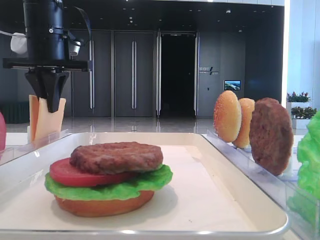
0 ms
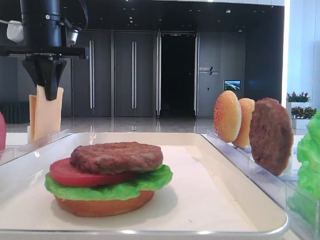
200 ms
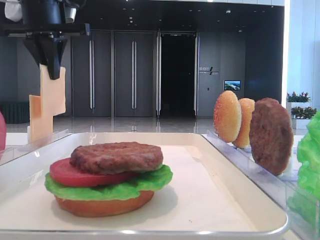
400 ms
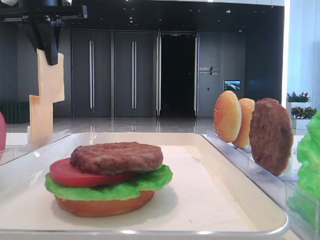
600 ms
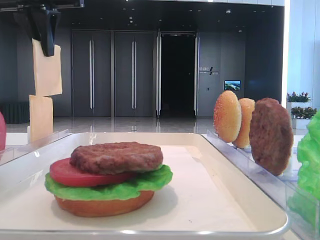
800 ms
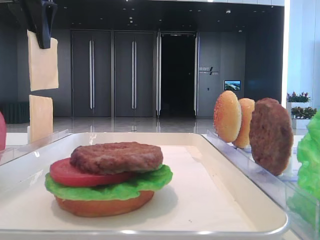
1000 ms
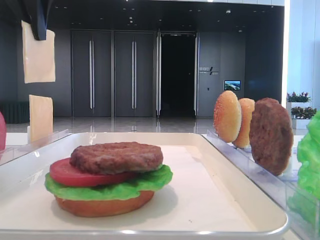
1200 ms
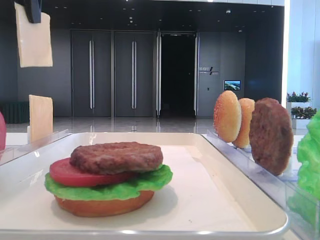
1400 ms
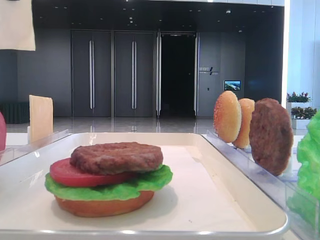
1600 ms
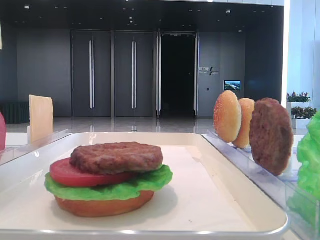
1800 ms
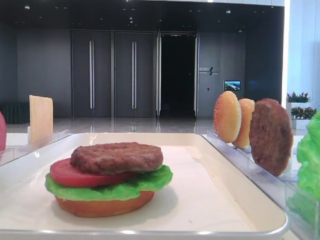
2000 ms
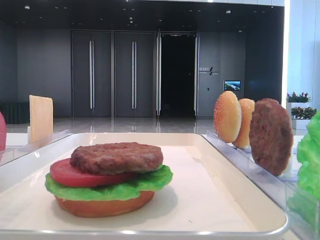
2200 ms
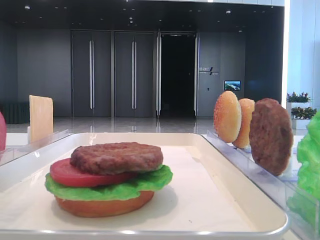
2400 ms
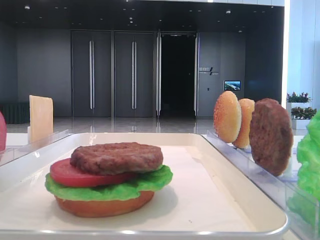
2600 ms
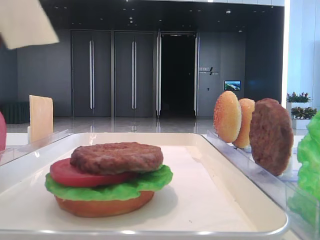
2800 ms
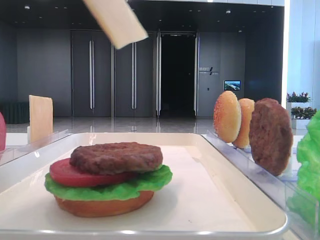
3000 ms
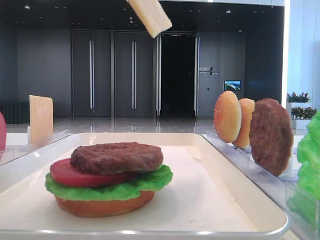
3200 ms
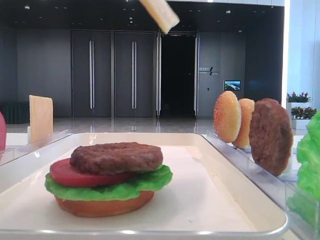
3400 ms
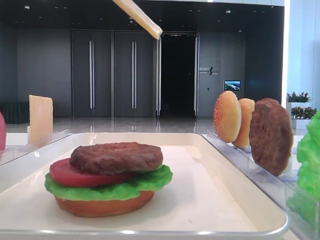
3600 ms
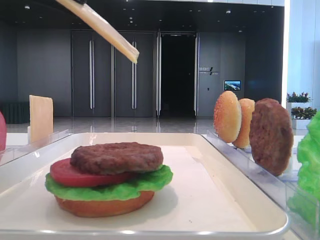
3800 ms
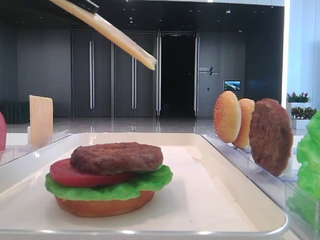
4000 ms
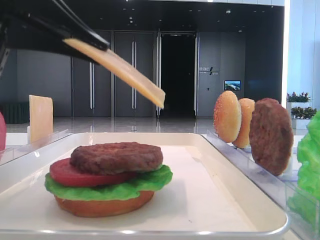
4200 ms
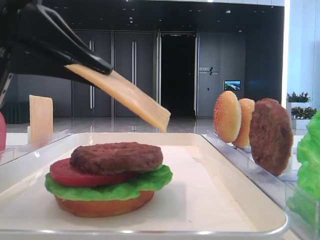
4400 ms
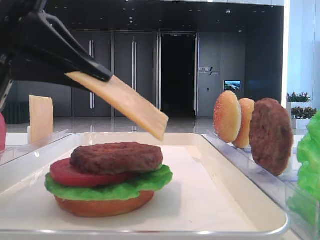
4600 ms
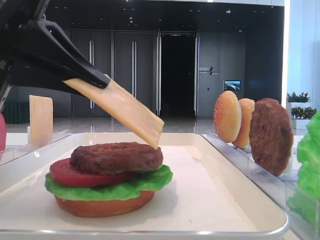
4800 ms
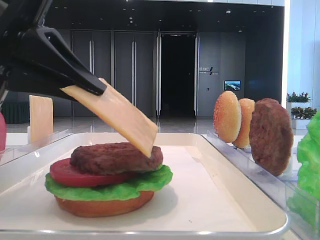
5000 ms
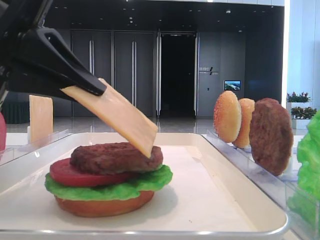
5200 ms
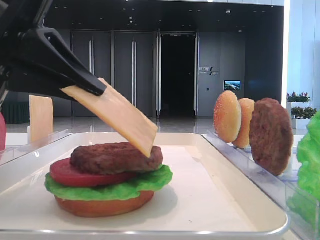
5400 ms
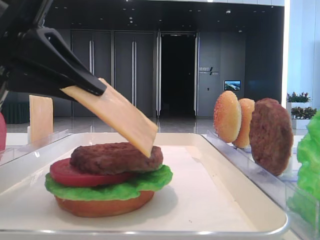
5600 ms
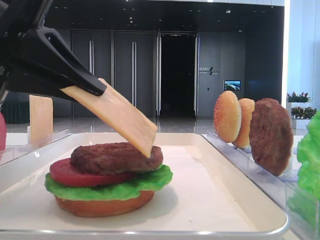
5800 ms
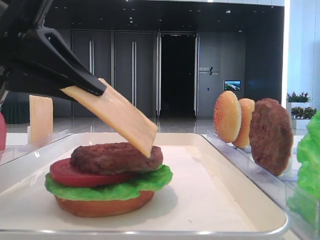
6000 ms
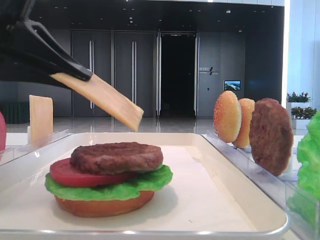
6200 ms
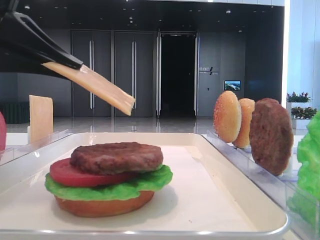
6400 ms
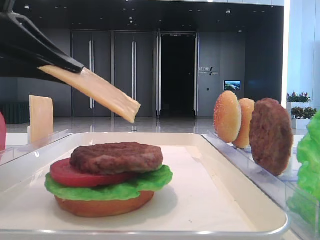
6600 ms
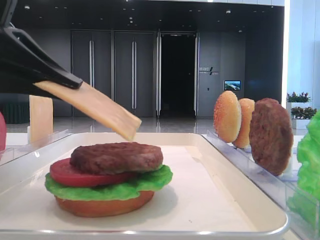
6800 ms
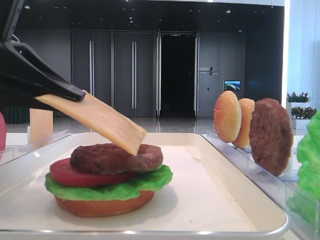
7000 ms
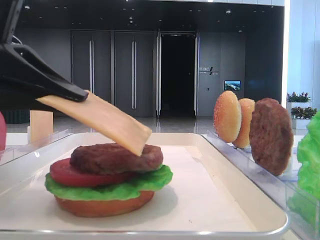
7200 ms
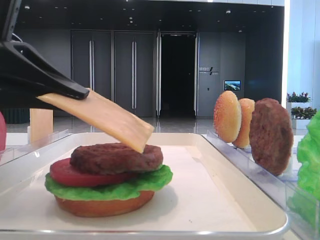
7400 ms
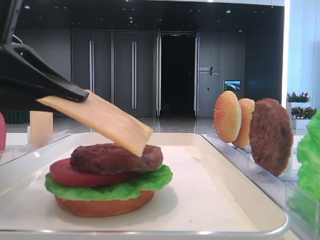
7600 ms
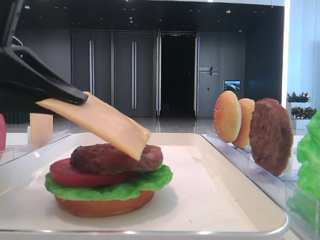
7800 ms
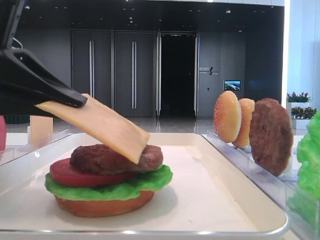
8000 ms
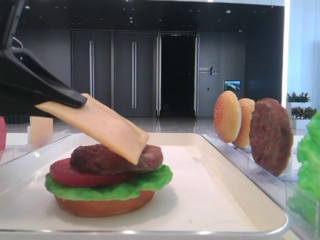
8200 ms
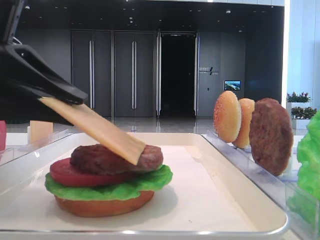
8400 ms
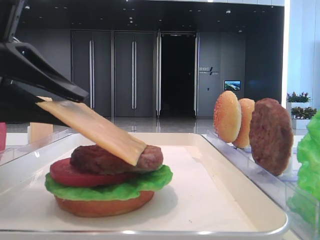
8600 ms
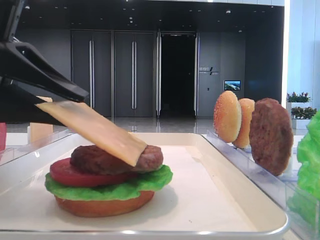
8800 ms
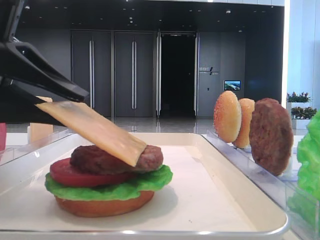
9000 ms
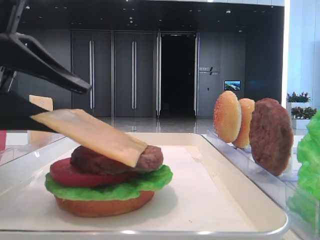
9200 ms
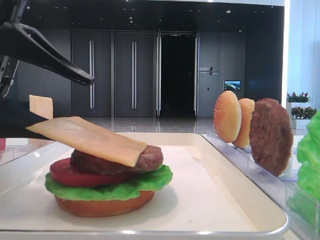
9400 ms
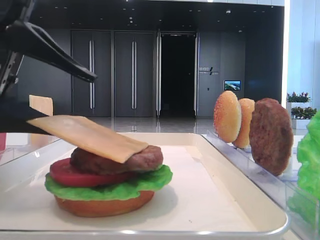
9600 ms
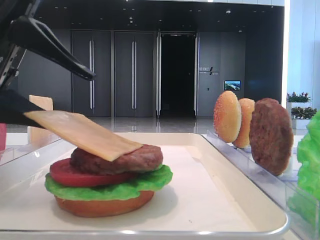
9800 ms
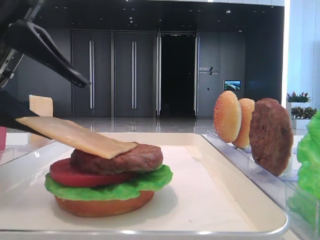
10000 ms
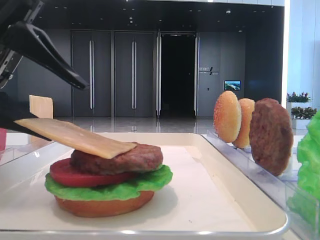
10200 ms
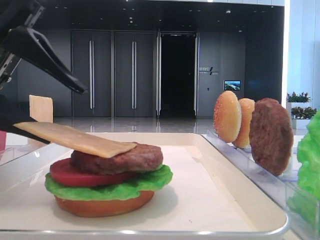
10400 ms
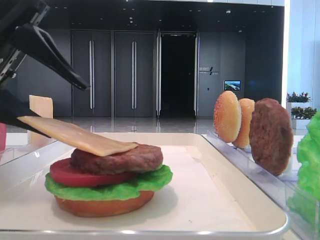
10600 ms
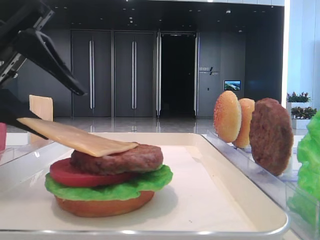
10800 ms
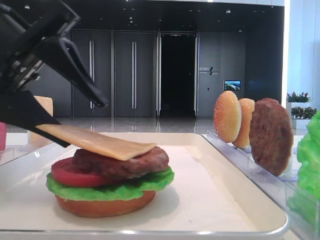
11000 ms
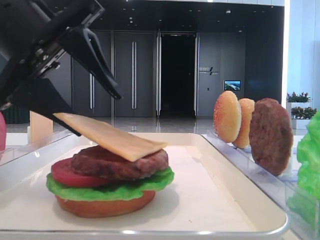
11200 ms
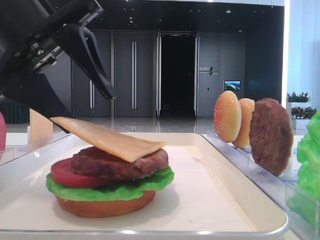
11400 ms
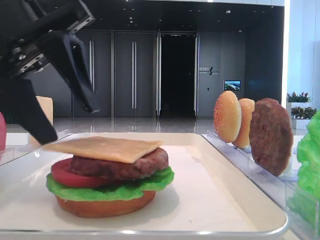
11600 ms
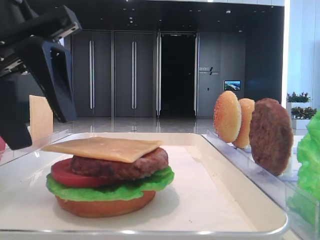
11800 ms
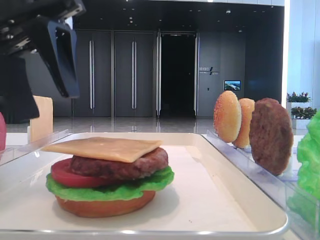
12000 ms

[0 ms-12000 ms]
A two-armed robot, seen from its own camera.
Step, 0 ms to 11400 ms: Place the cheese slice on the patty with the left hand.
0 ms to 1600 ms: The left gripper shifts about 20 cm upward and backward.
1600 ms to 3000 ms: The left gripper moves backward, to the right and downward, about 15 cm.
3000 ms to 4400 ms: The left gripper shifts roughly 15 cm downward.
4400 ms to 7600 ms: The grippers stay close to where they were, moving slightly.
7600 ms to 9000 ms: The left gripper opens.
9000 ms to 10400 ms: The left gripper opens up.
10400 ms to 12000 ms: The left gripper is displaced upward by some 5 cm.

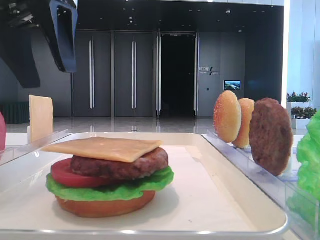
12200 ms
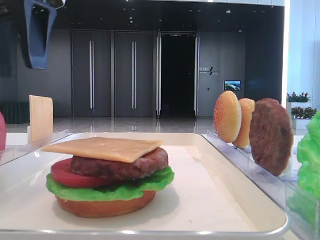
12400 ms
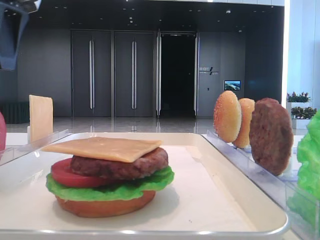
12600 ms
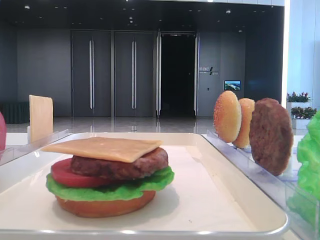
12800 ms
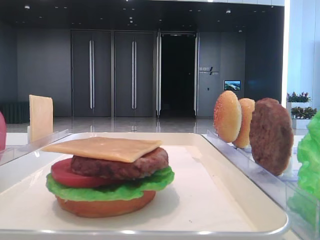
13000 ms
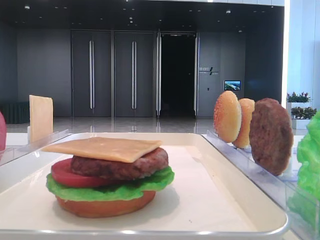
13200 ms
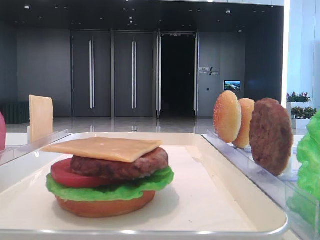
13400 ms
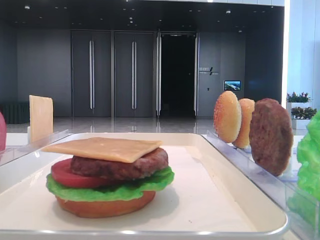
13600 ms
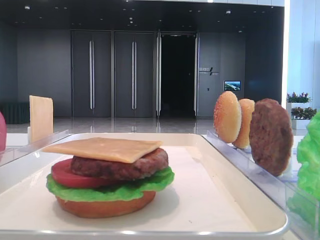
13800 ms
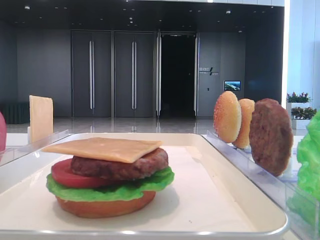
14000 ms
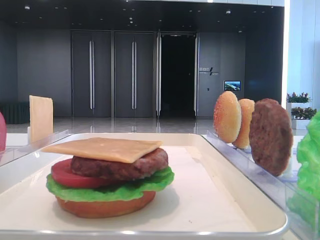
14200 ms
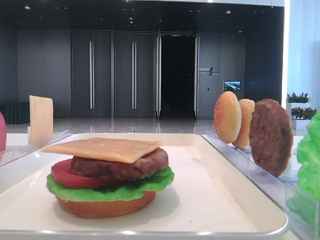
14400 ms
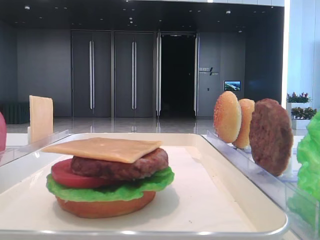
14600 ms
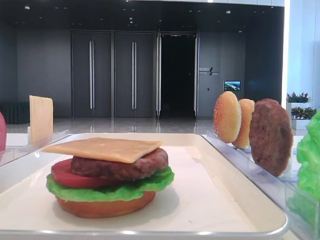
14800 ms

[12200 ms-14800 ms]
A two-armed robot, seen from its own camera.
12200 ms to 13400 ms: The left gripper is displaced to the left and upward by about 20 cm.

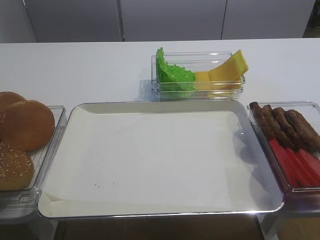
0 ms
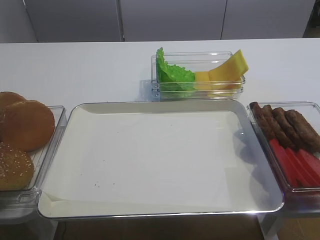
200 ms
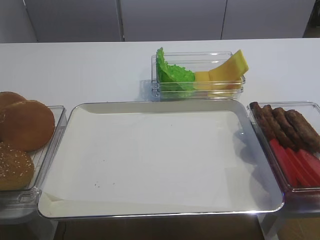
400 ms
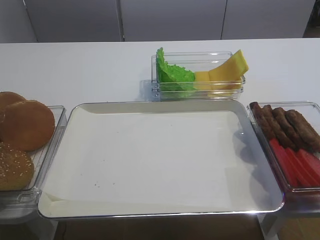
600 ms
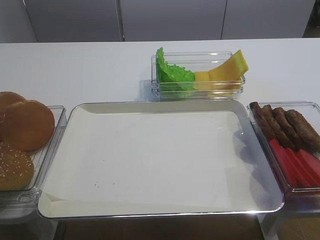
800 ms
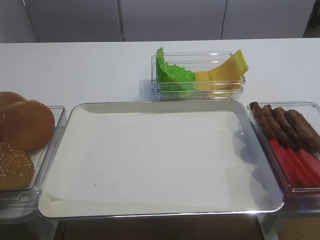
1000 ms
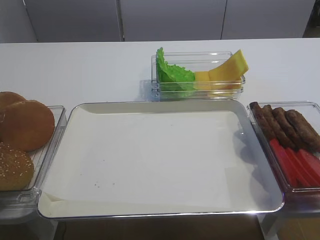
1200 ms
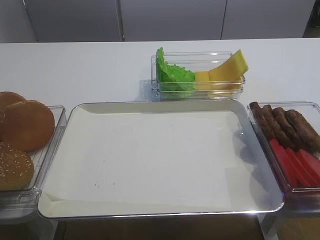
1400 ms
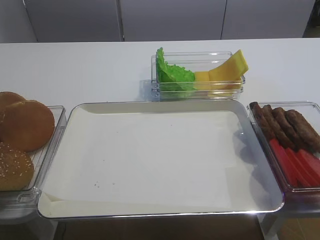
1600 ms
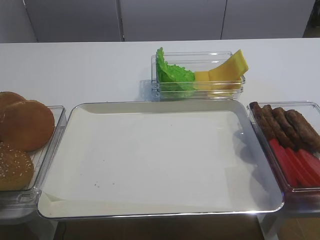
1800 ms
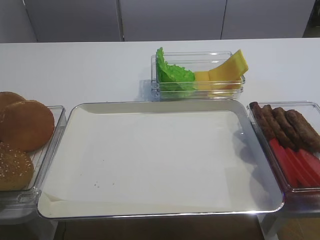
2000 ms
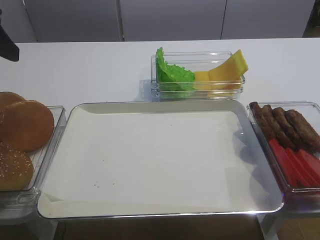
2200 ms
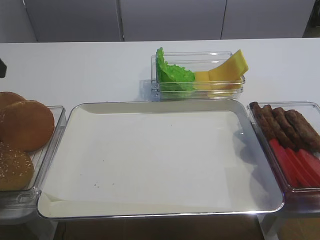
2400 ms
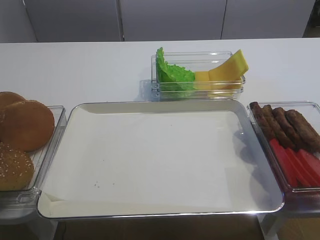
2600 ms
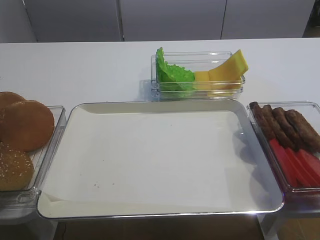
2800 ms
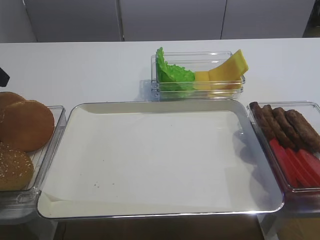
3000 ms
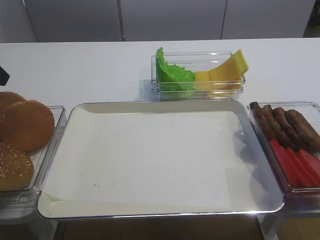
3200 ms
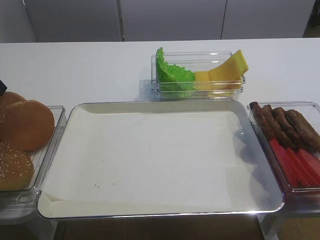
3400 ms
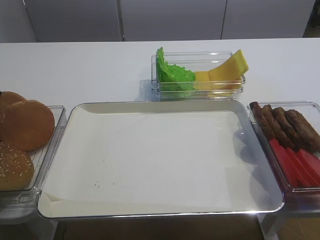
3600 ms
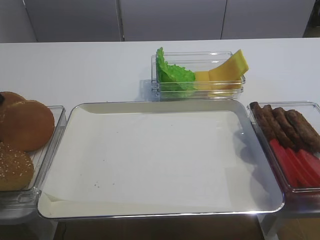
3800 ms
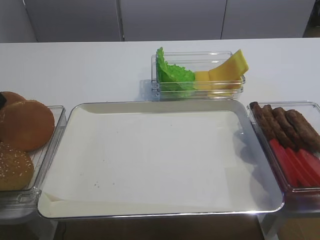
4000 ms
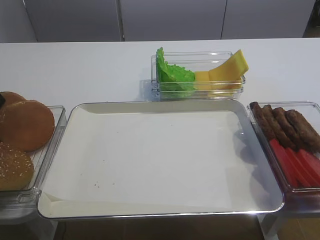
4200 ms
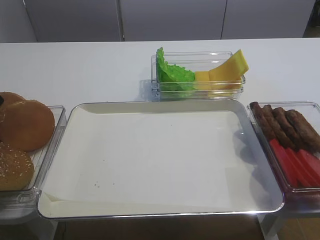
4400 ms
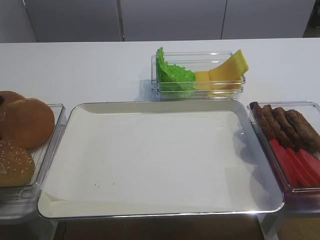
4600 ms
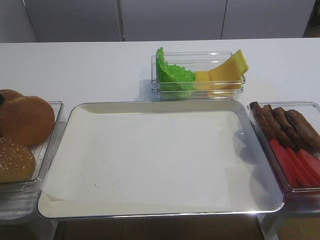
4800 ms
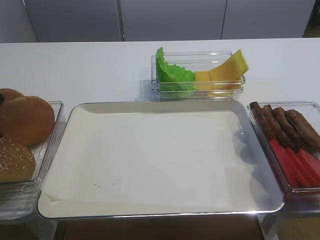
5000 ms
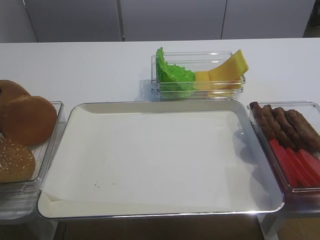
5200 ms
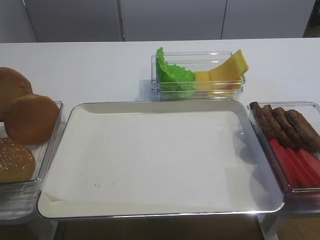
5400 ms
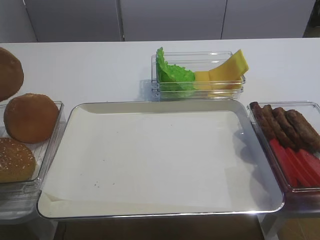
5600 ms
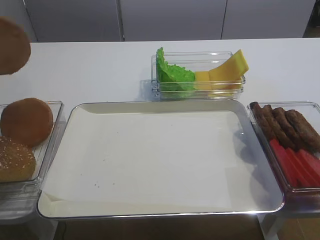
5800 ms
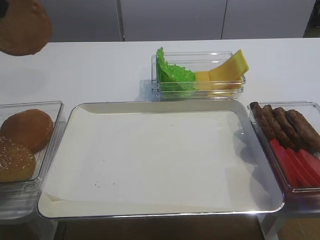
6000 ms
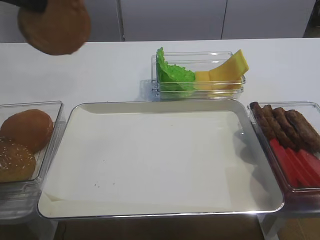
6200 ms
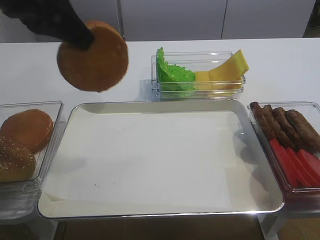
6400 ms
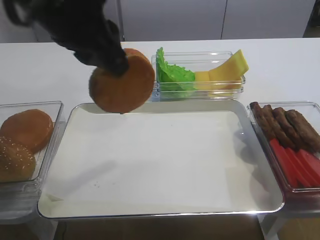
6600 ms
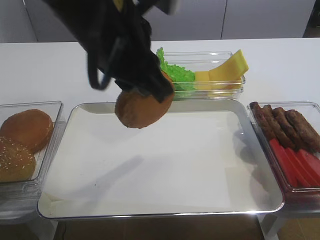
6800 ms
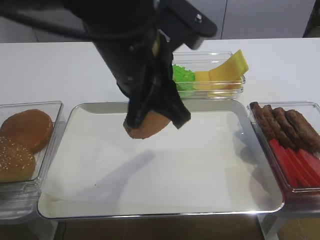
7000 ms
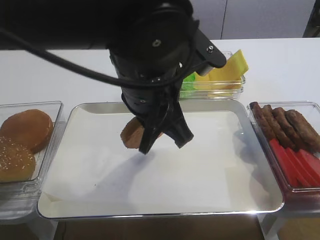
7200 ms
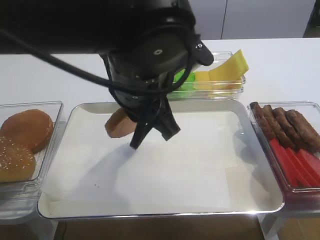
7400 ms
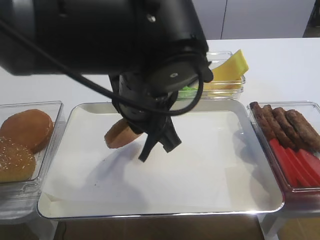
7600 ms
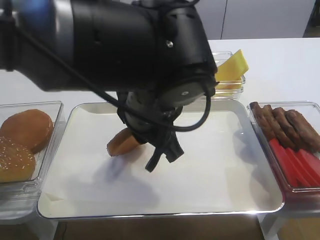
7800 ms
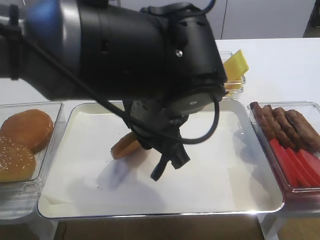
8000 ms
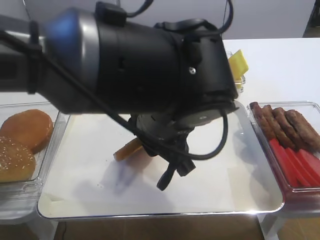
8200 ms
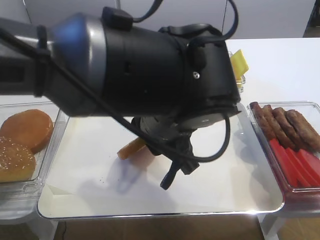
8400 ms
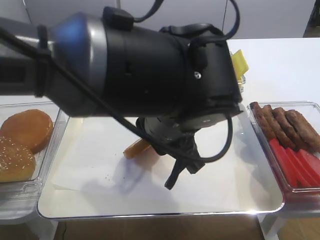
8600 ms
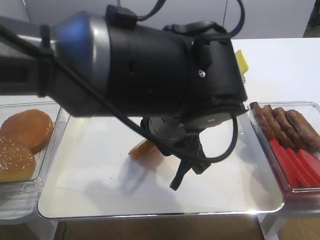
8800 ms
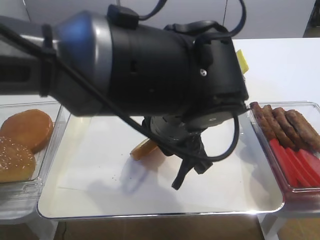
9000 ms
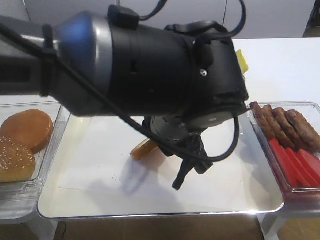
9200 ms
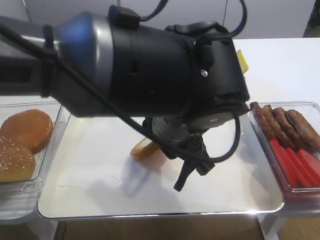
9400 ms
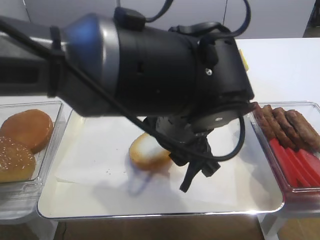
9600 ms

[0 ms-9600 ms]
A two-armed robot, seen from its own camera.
Step, 0 ms to 5600 ms: Pick up the bread slice with the left gripper.
3200 ms to 4800 ms: The left gripper closes.
4800 ms to 6400 ms: The left gripper shifts roughly 25 cm to the right.
6400 ms to 8000 ms: The left gripper heads downward and to the right, covering about 15 cm.
8000 ms to 9600 ms: The left gripper opens.
